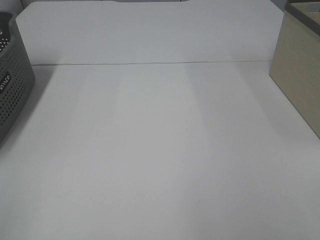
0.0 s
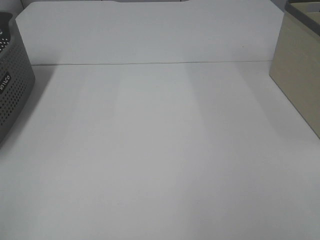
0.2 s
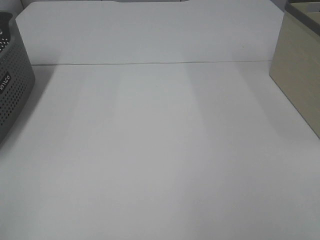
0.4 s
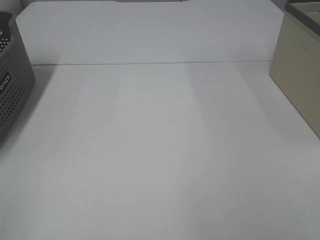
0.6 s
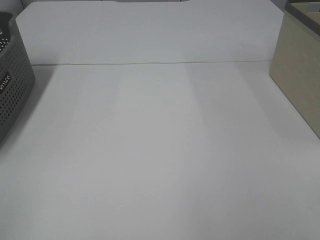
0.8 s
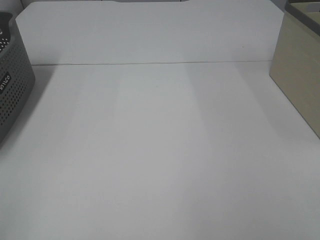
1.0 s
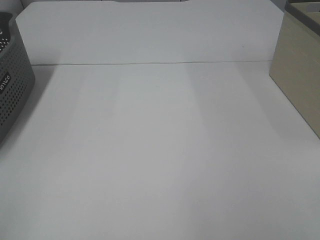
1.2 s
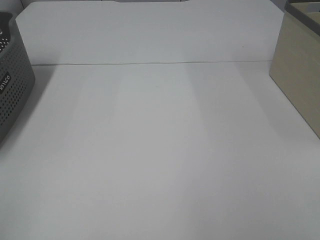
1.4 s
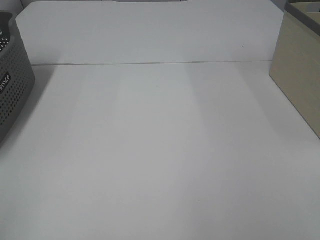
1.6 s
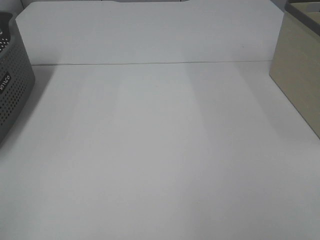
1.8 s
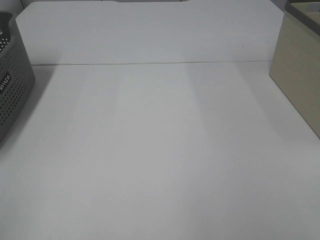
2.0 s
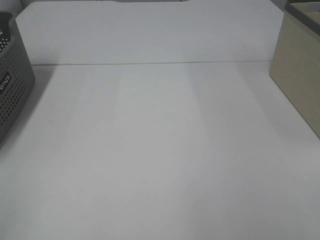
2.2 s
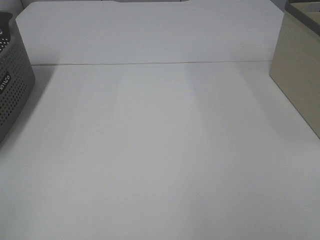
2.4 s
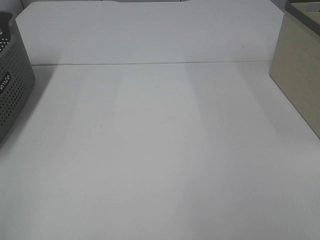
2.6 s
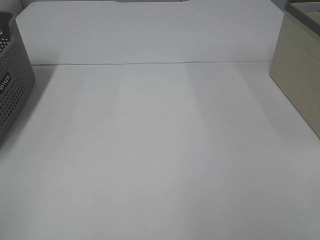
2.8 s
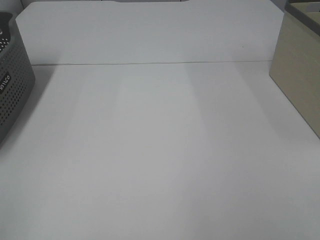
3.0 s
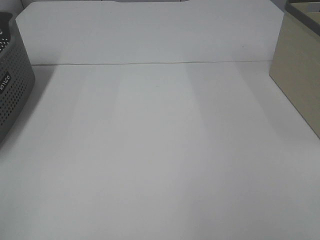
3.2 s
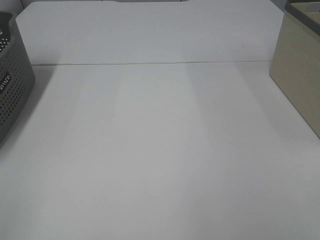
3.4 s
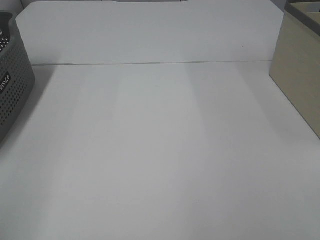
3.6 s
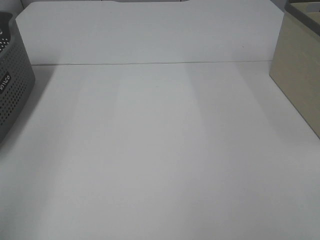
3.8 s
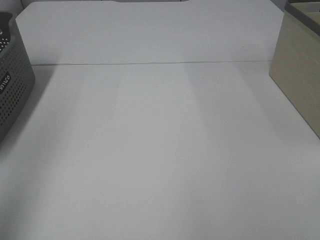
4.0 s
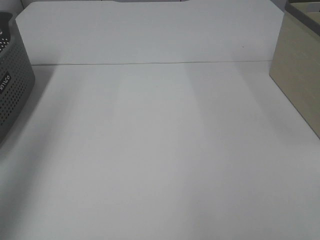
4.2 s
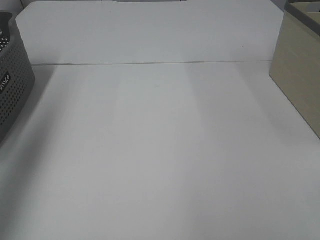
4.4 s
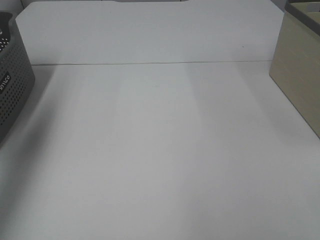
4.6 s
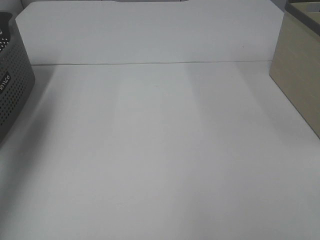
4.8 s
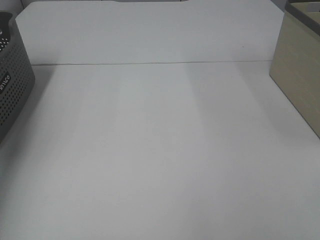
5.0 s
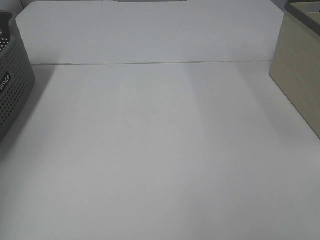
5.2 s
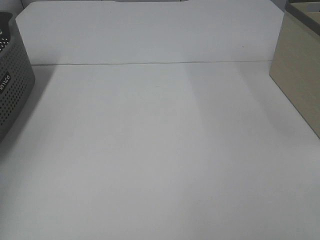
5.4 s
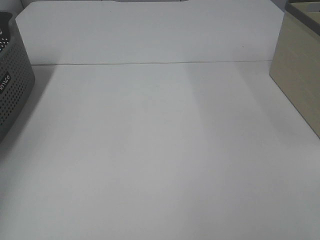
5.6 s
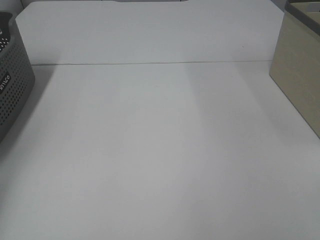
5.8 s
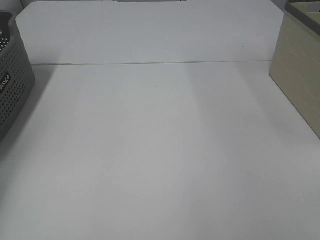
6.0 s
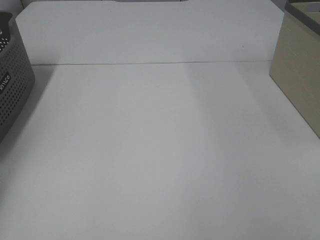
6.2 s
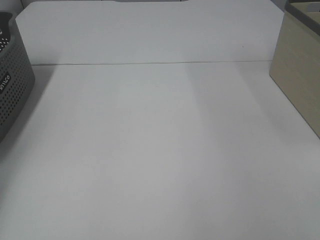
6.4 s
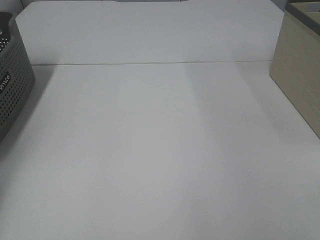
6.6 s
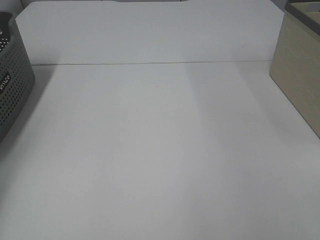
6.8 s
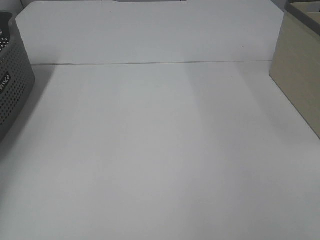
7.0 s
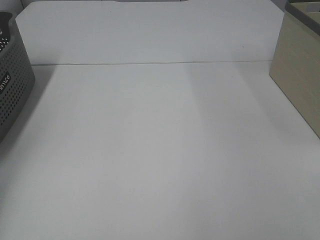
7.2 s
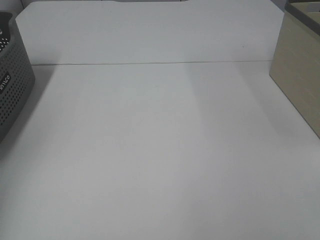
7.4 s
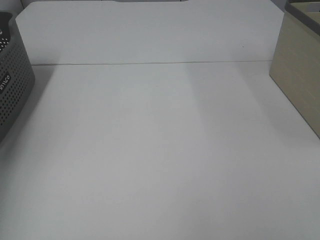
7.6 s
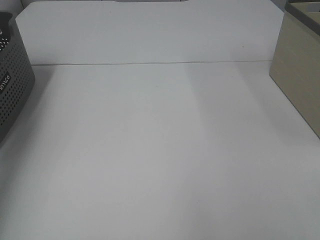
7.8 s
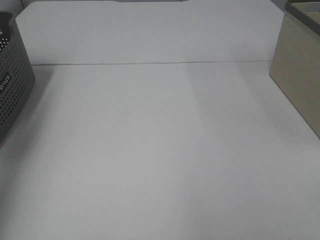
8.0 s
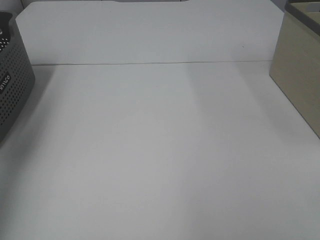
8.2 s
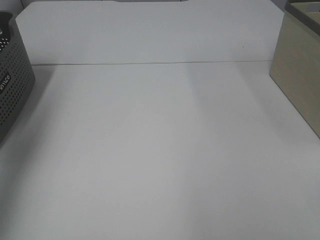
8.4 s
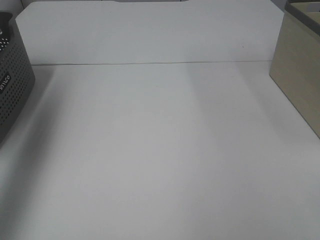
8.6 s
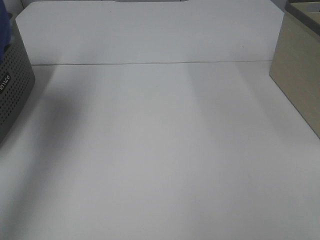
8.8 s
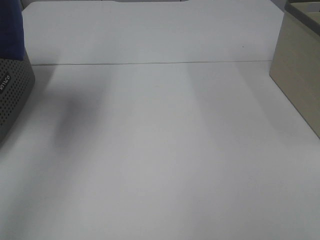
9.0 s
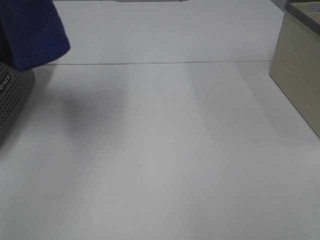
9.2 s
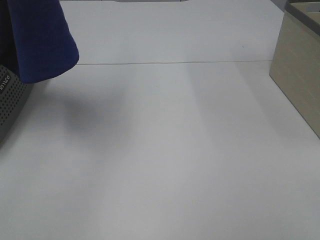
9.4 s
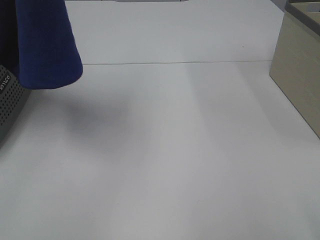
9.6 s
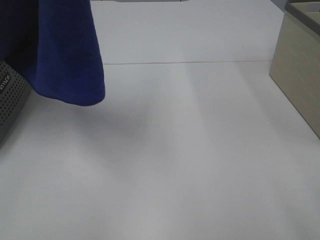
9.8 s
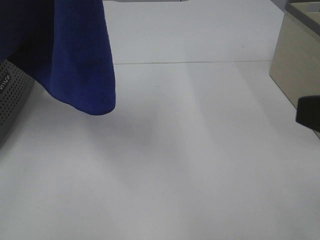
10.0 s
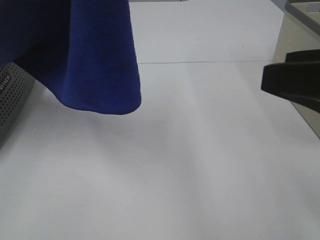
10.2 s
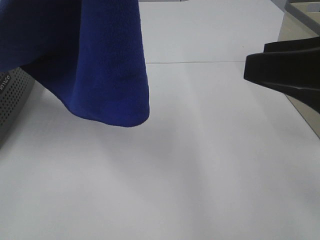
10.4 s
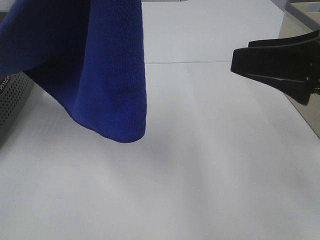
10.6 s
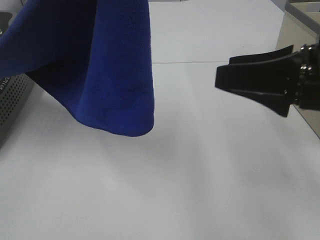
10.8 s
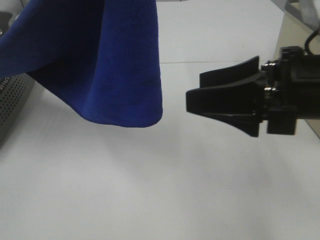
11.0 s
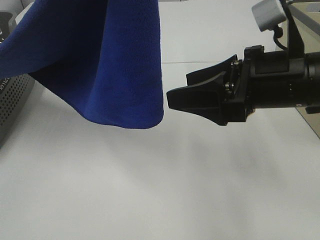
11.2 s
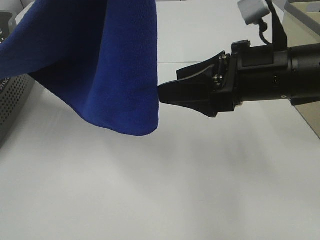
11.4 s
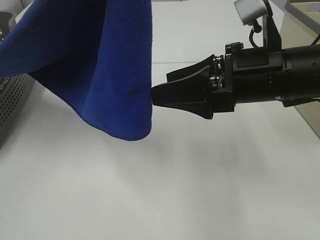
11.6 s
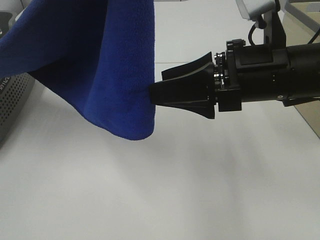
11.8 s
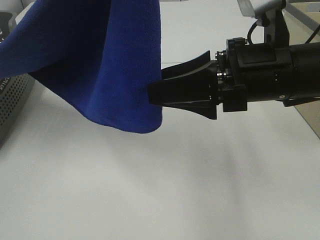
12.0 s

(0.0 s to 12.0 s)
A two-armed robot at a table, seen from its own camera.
Task of the whole recording: Remove the towel and place it.
0.0 s - 3.0 s: Both grippers stay put.
3.0 s - 4.4 s: The left gripper shifts about 30 cm forward and upward.
4.4 s - 6.0 s: The left gripper shifts about 30 cm downward, forward and to the left.
7.6 s - 9.0 s: The left gripper shifts some 25 cm to the right, upward and backward.
9.0 s - 10.4 s: The right gripper travels forward and to the left by approximately 15 cm. The left gripper shifts approximately 15 cm to the right and backward.
10.4 s - 12.0 s: The right gripper travels to the left, forward and downward by approximately 10 cm.

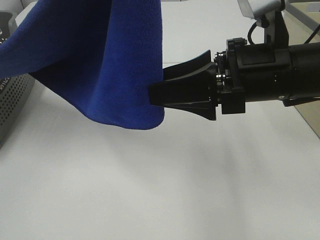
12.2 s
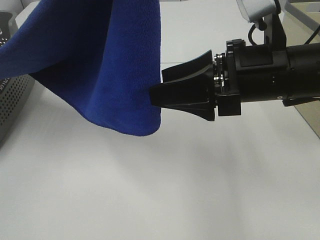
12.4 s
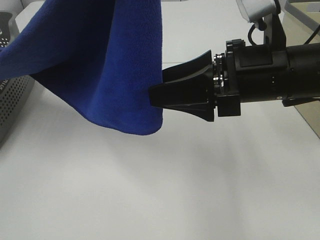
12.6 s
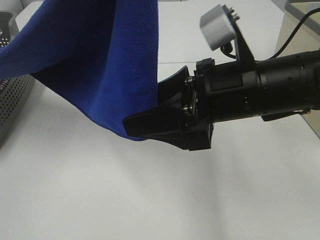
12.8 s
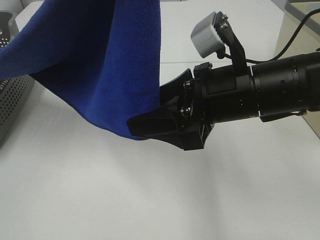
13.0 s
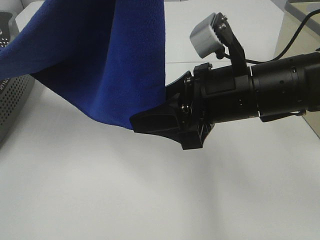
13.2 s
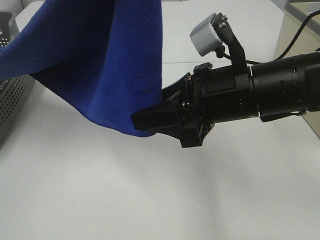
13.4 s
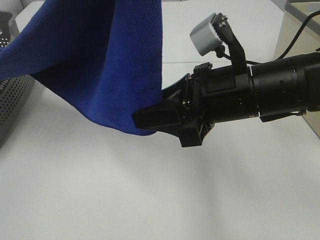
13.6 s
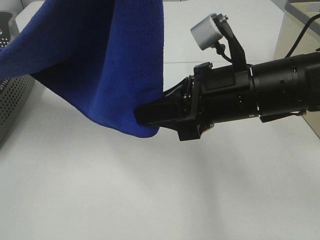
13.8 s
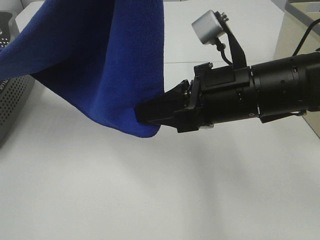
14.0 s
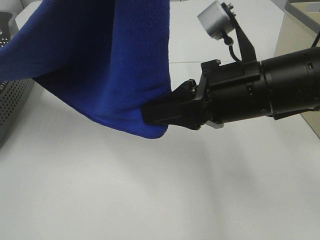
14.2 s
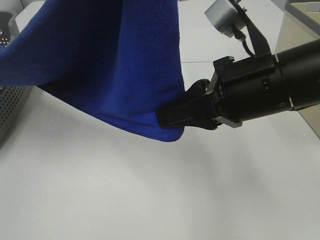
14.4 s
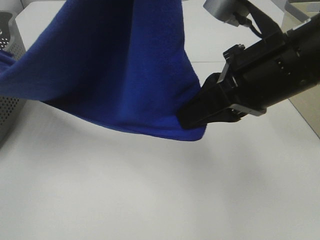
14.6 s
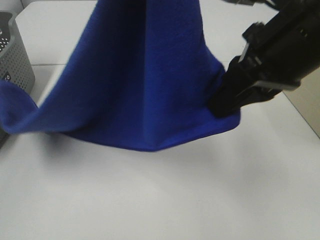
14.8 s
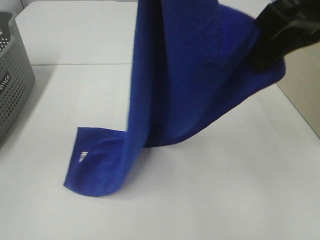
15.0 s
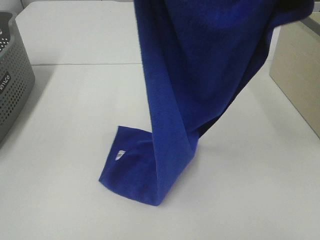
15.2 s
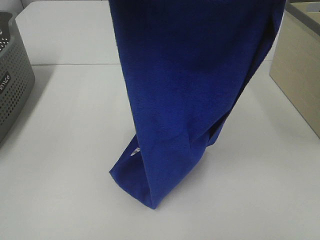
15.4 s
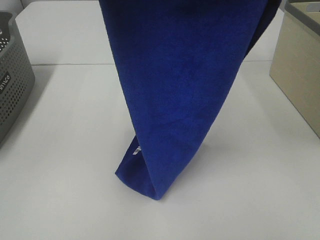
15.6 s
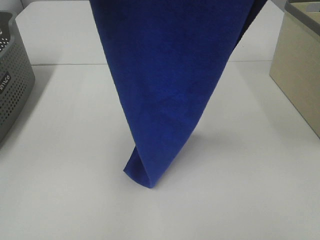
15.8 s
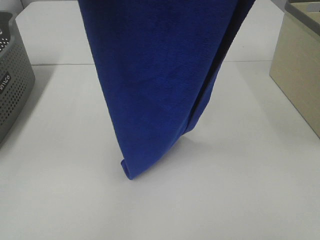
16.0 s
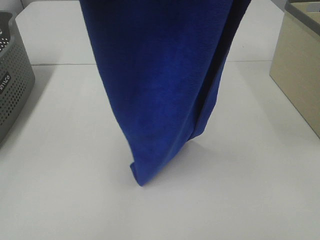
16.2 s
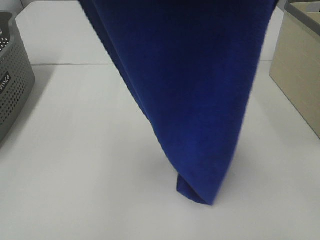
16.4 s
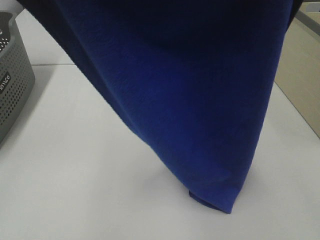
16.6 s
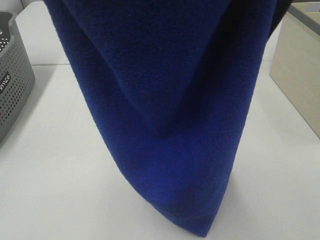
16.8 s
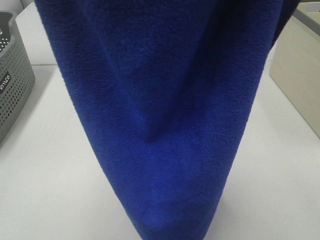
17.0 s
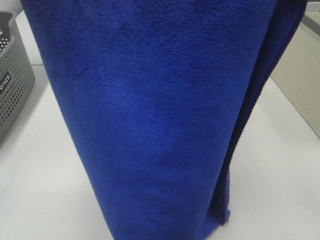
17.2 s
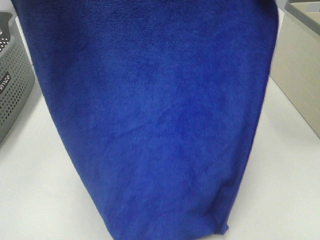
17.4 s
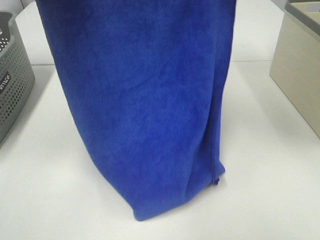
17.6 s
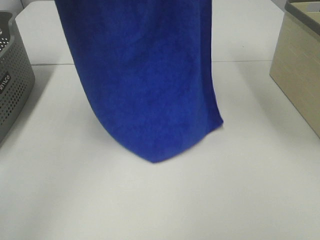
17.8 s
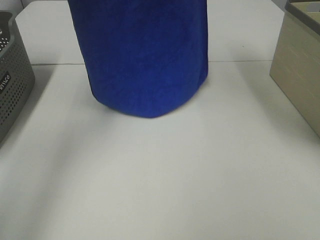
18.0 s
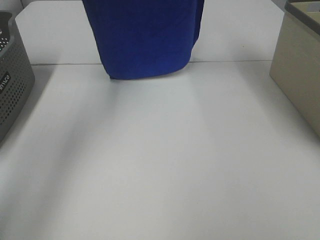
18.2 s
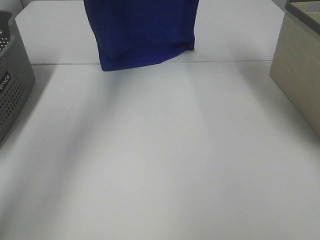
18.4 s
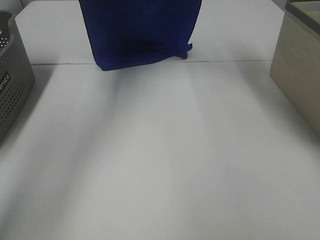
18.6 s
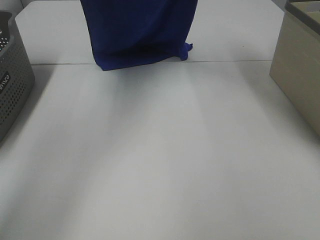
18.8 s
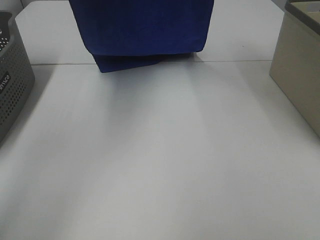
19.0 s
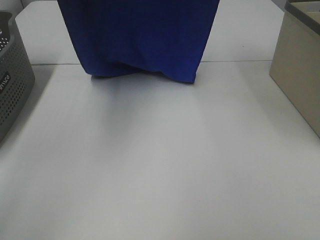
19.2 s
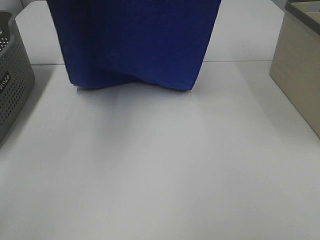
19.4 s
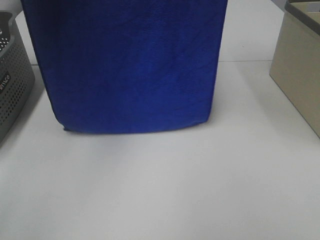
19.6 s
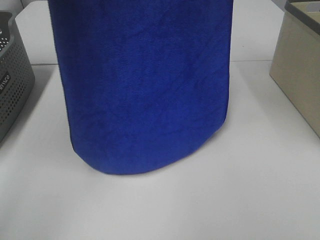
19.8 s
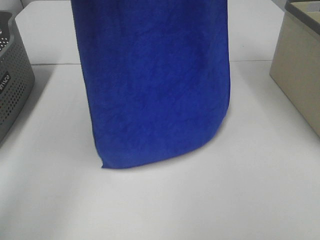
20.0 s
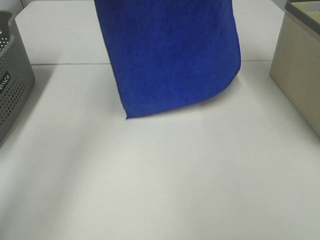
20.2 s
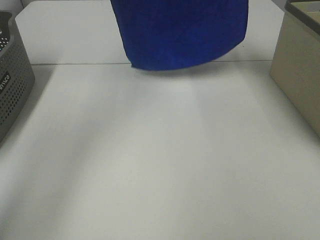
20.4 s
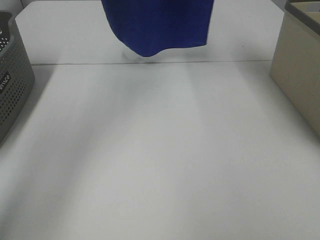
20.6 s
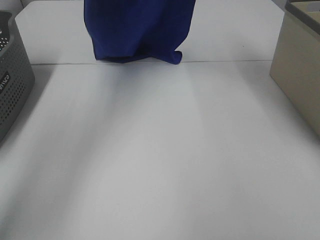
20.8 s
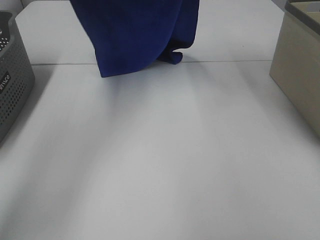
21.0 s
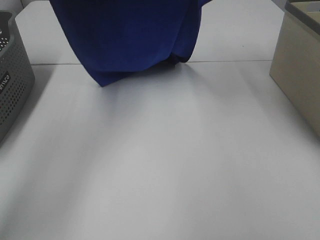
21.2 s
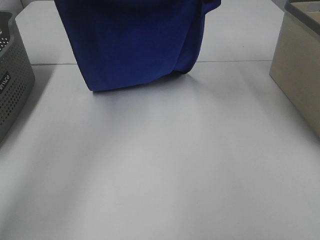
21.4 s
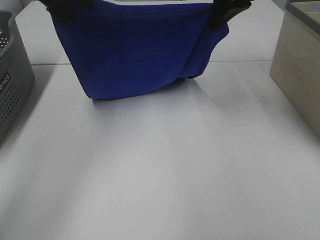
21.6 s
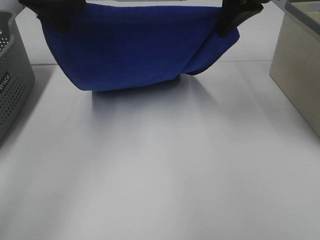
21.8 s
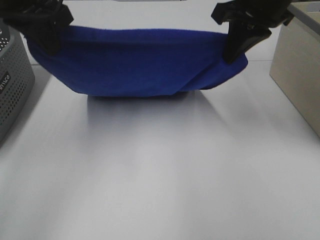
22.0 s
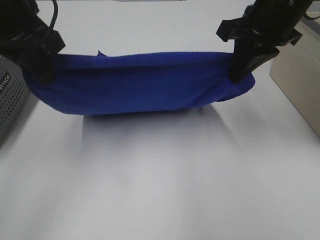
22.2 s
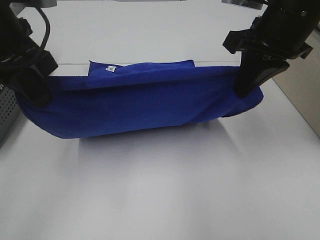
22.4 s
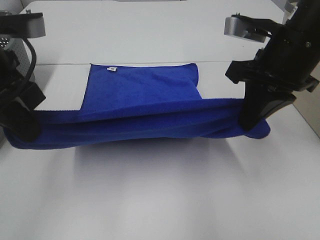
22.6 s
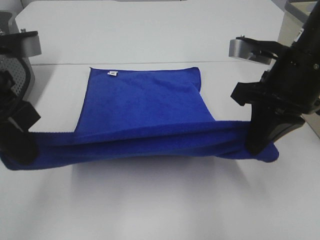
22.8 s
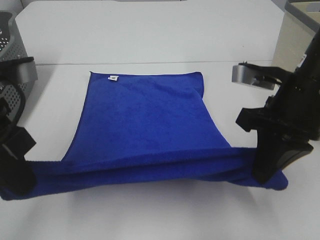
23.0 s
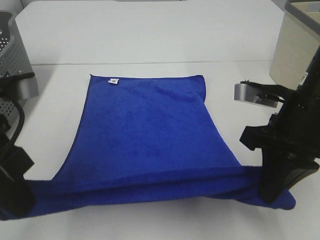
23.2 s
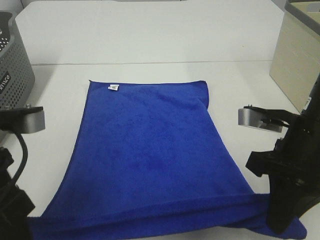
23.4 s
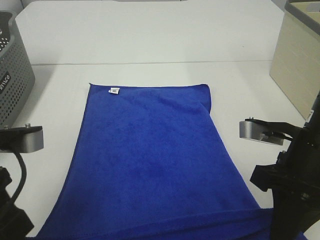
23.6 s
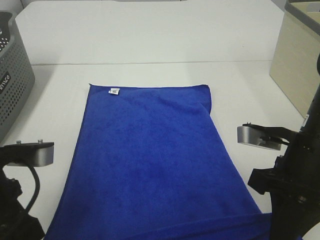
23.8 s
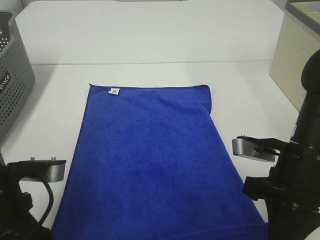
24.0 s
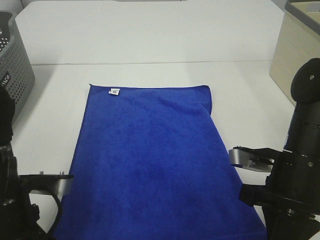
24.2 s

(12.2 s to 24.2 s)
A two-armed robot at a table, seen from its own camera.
Task of the whole recording: Remove the towel and place it.
Step, 12.2 s - 14.6 s: Right hand: grab a corner of the blue towel and straighten it.
Step, 14.8 s - 21.2 s: Left hand: spread the blue towel flat on the table.
Step, 14.8 s - 21.2 s: Right hand: spread the blue towel flat on the table.
12.2 s - 13.8 s: The right gripper closes.
13.8 s - 15.2 s: The right gripper heads upward, covering approximately 20 cm.
15.2 s - 16.6 s: The left gripper shifts roughly 10 cm backward and to the left, while the right gripper goes about 10 cm backward and upward.
16.6 s - 18.2 s: The grippers both shift forward by roughly 30 cm.
18.2 s - 19.8 s: The right gripper reaches about 10 cm backward, then returns, while the left gripper shifts approximately 5 cm backward.
19.8 s - 21.2 s: The left gripper travels downward and forward by some 15 cm, while the right gripper travels downward by some 10 cm.
21.2 s - 22.6 s: The two grippers go some 20 cm backward and downward.
22.6 s - 24.2 s: The two grippers go some 15 cm downward and backward.
